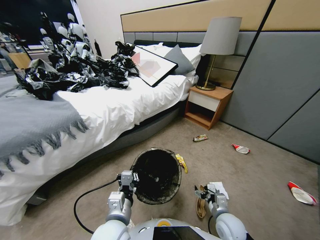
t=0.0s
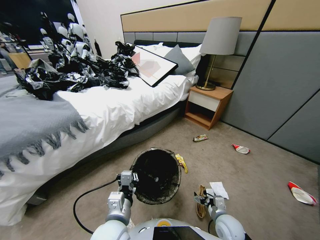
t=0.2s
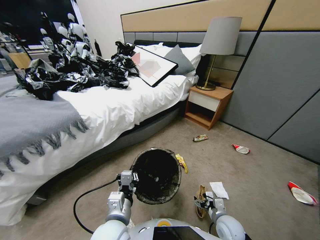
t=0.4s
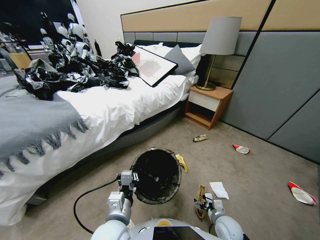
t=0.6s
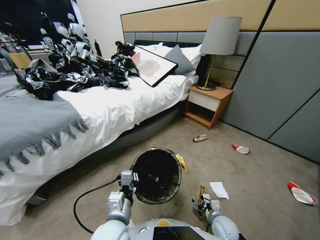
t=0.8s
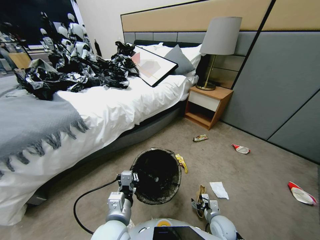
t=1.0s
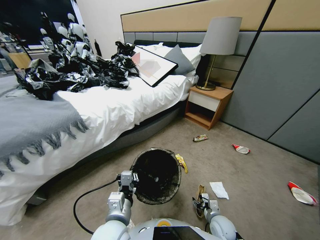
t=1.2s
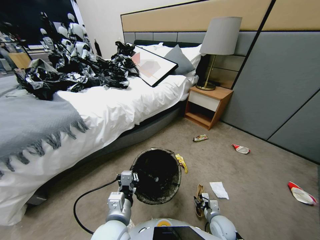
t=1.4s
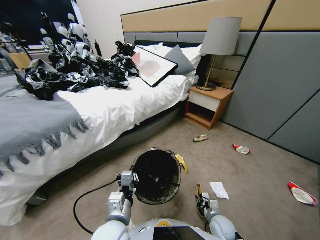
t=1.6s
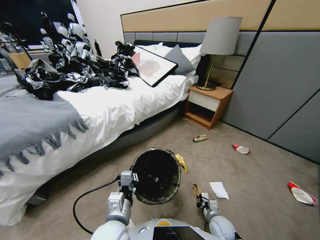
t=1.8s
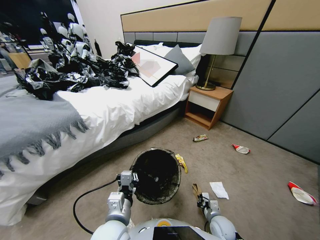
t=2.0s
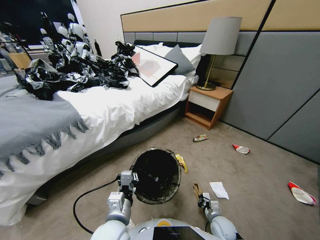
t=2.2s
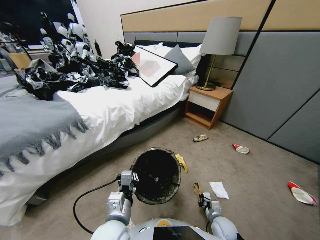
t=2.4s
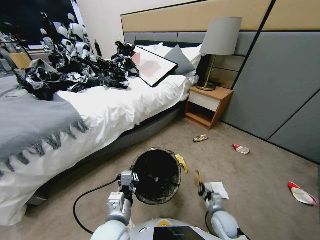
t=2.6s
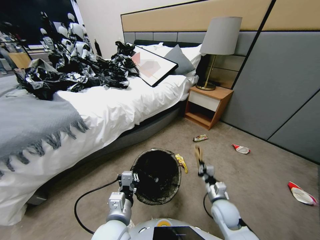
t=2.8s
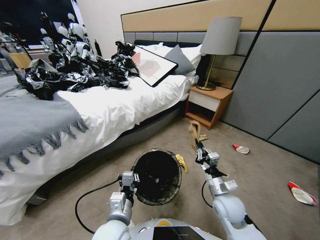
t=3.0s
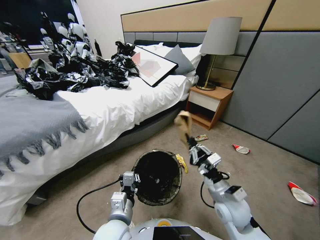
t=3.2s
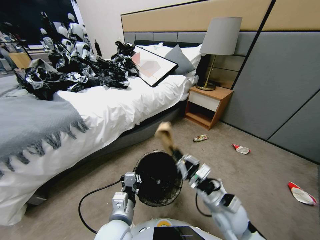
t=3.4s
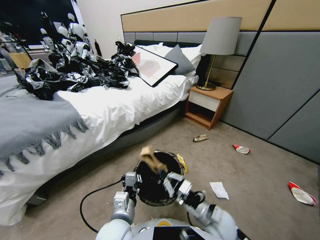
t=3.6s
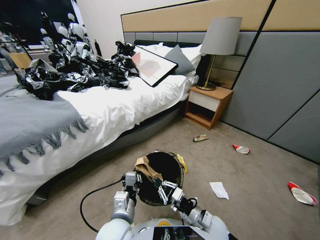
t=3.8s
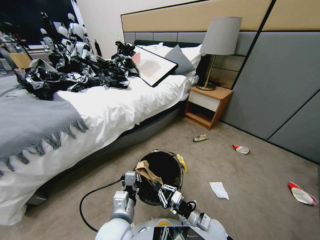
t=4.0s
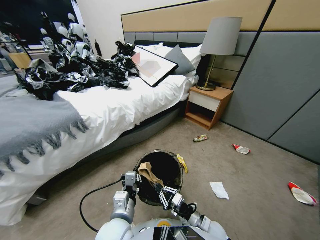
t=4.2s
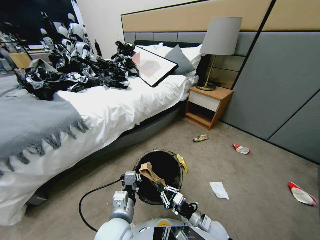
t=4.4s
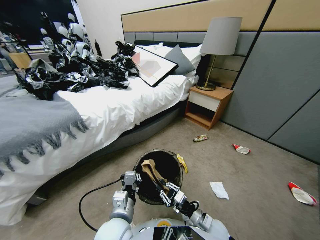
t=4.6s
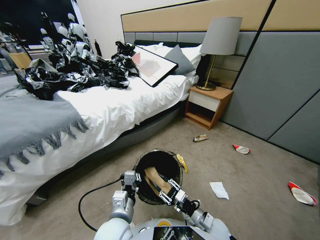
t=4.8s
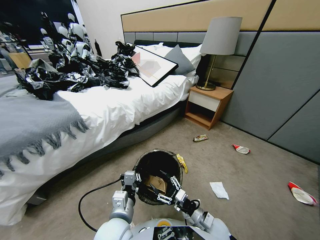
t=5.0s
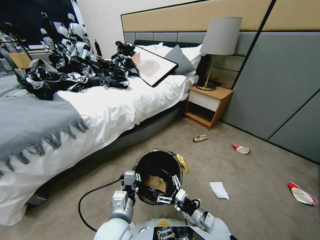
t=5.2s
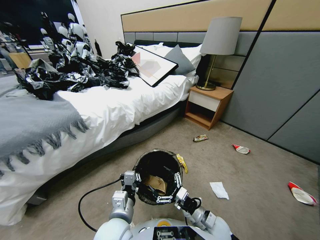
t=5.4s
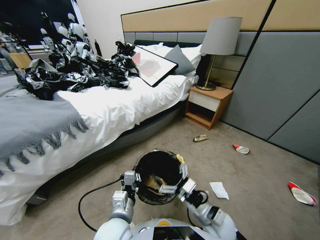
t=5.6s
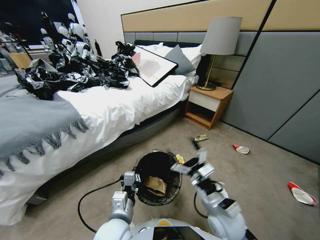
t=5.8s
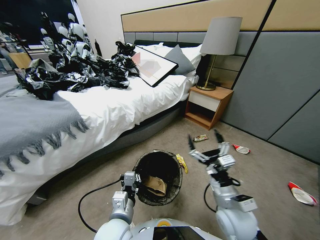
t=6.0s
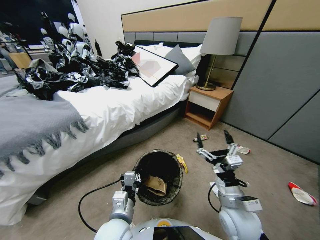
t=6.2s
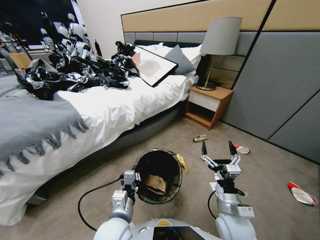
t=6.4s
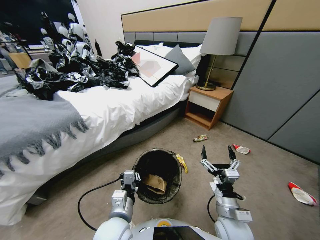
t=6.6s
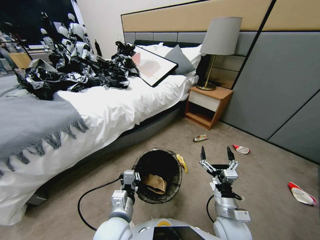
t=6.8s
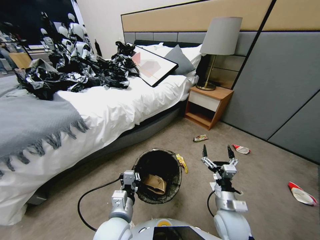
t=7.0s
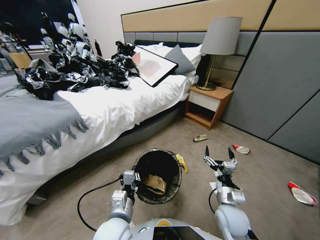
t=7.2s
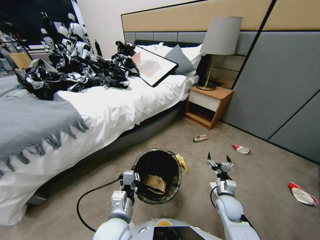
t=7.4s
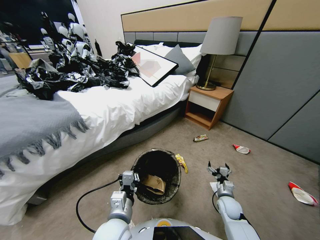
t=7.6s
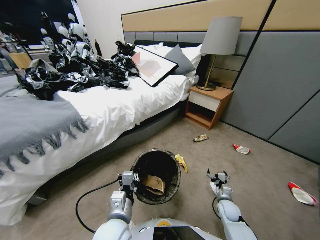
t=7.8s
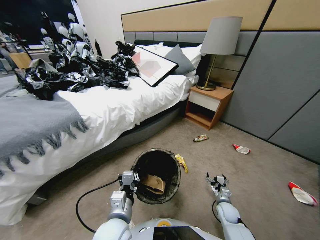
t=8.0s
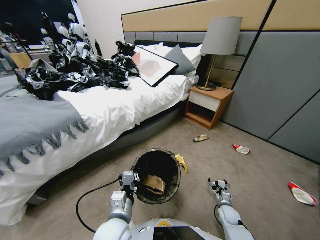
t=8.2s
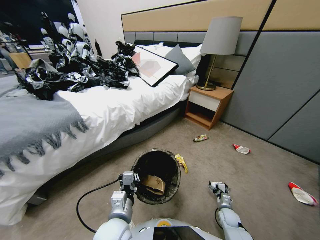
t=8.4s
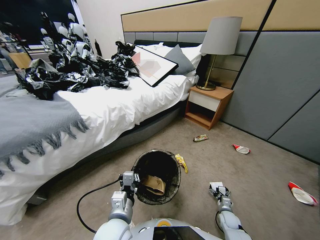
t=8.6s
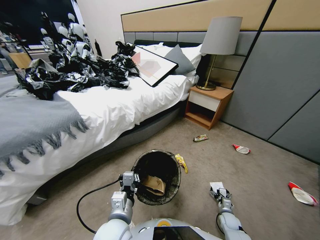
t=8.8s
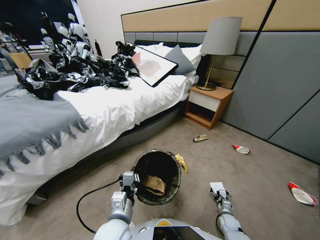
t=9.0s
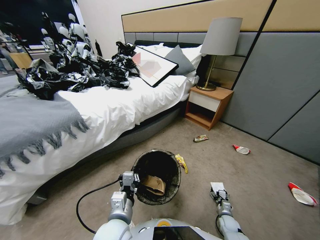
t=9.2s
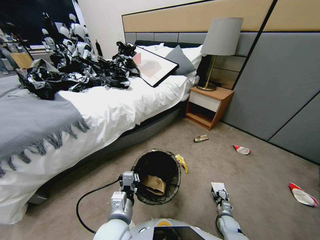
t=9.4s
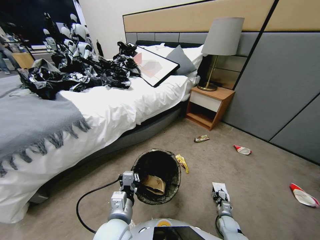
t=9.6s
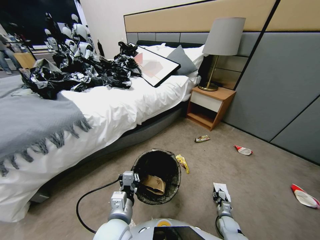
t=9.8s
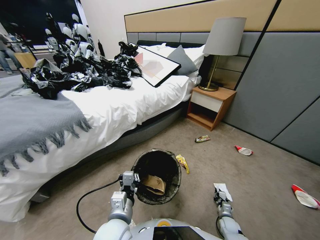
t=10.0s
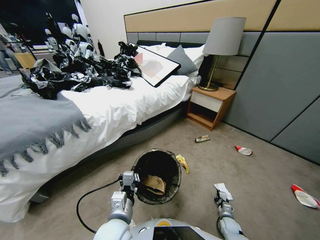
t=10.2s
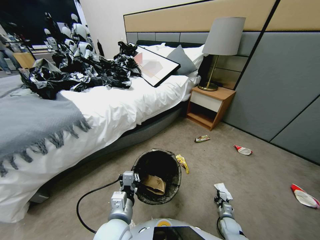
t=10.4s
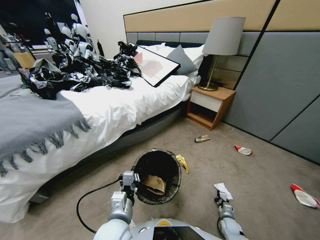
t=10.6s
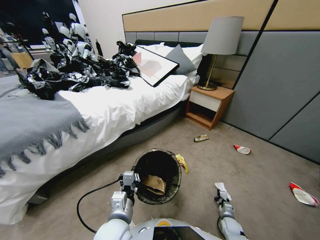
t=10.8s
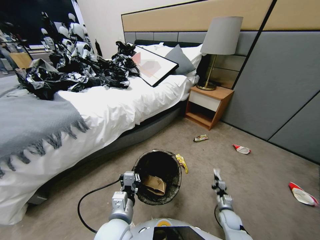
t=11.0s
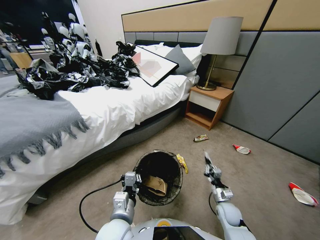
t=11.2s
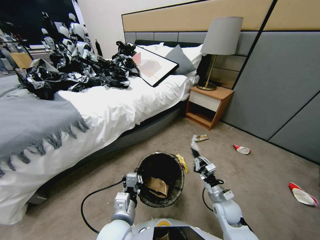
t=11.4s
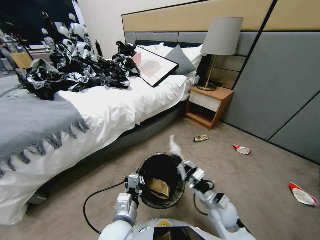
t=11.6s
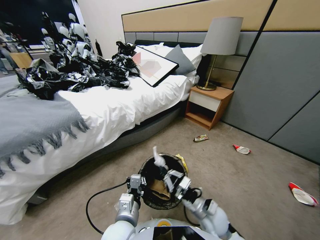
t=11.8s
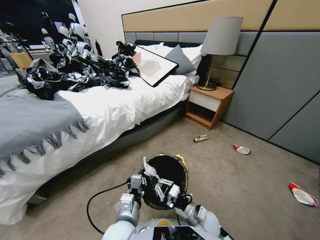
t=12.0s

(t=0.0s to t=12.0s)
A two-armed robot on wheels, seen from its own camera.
Task of the whole recording: Pick up the trash bin, then pick up the garbage from the floor and place it into the trash bin.
t=0.0s - t=1.6s: The right gripper goes roughly 5 cm downward, and closes up.
t=1.6s - t=3.0s: The right gripper is displaced upward by about 20 cm.
t=3.0s - t=4.4s: The right gripper shifts approximately 15 cm downward and backward.
t=4.4s - t=6.0s: The right gripper moves upward, roughly 15 cm, and opens its fingers.
t=6.0s - t=7.6s: The right gripper heads downward and to the right, covering about 25 cm.
t=7.6s - t=9.0s: The right gripper travels downward by some 15 cm.
t=9.0s - t=10.4s: The right gripper closes up.
t=10.4s - t=12.0s: The right gripper moves upward and to the left, about 35 cm.

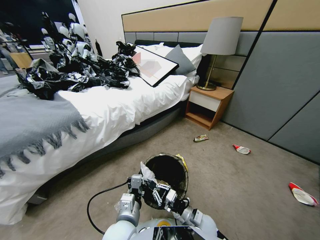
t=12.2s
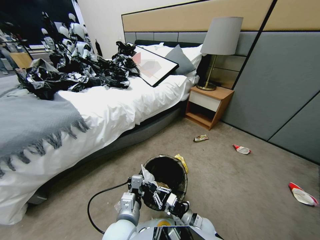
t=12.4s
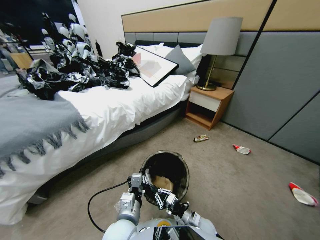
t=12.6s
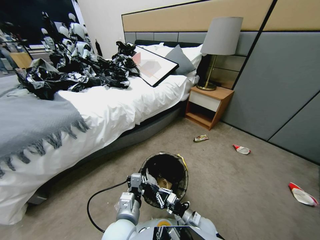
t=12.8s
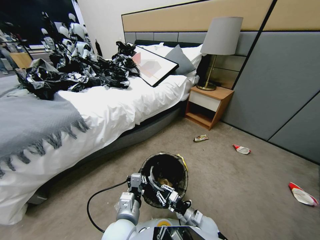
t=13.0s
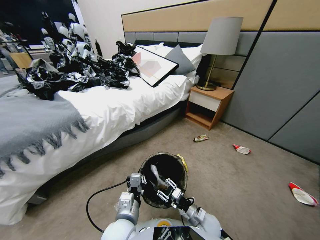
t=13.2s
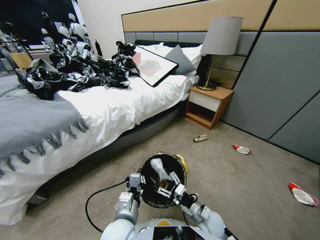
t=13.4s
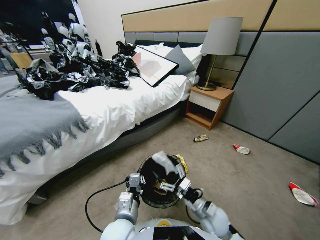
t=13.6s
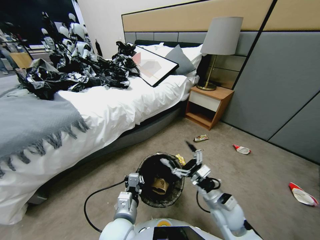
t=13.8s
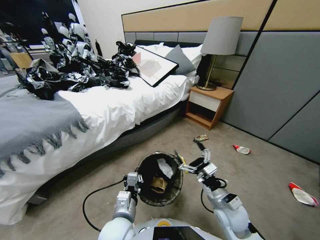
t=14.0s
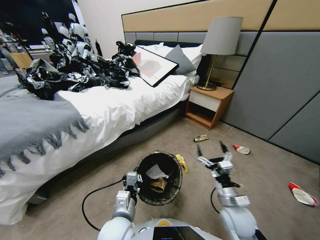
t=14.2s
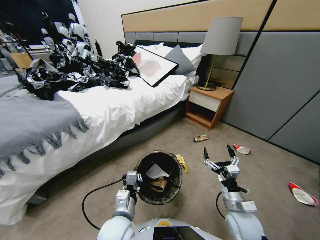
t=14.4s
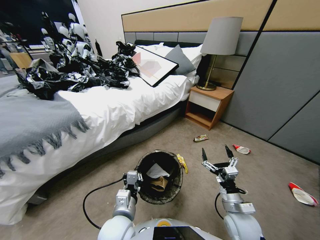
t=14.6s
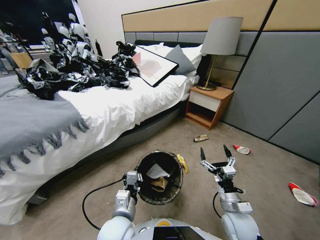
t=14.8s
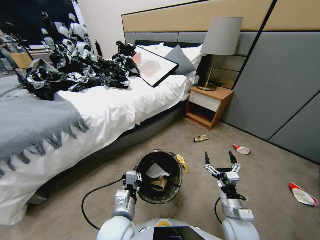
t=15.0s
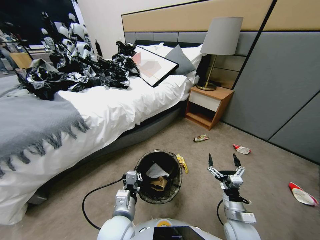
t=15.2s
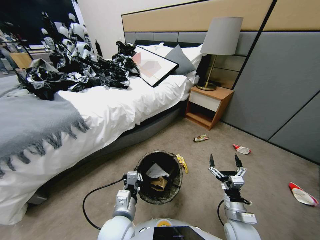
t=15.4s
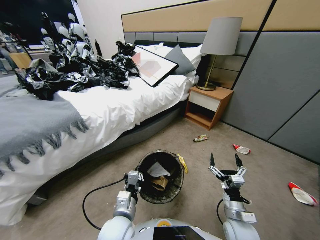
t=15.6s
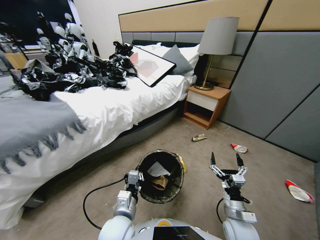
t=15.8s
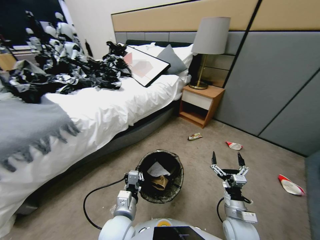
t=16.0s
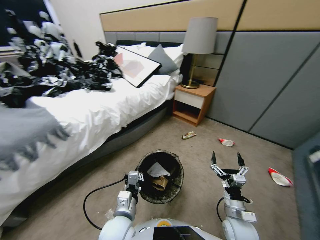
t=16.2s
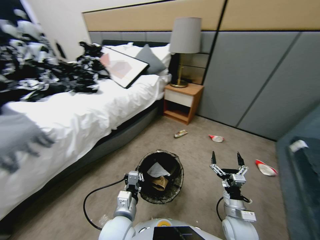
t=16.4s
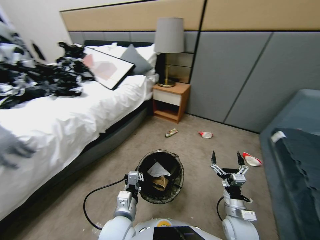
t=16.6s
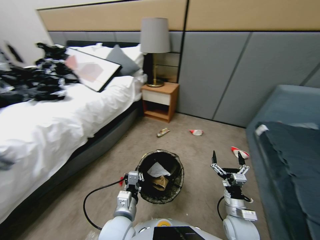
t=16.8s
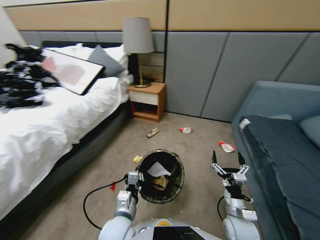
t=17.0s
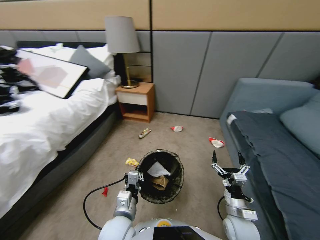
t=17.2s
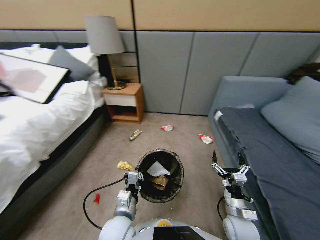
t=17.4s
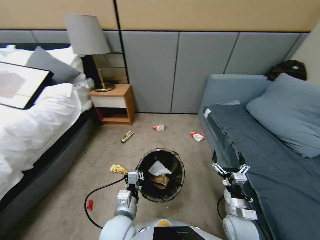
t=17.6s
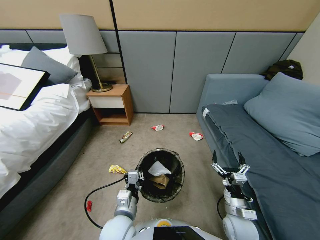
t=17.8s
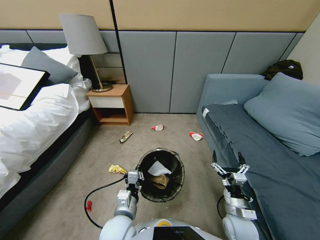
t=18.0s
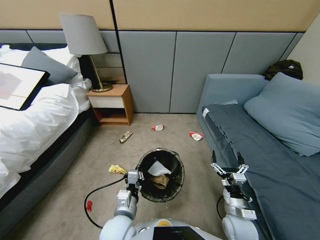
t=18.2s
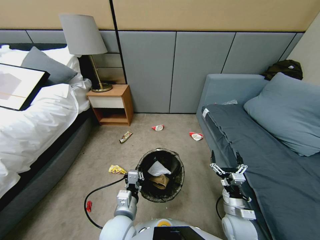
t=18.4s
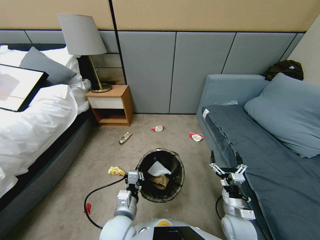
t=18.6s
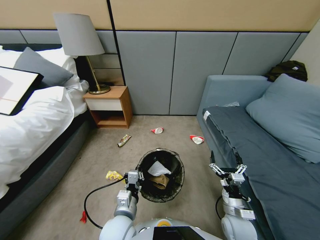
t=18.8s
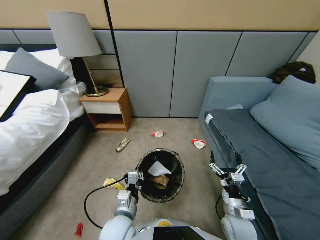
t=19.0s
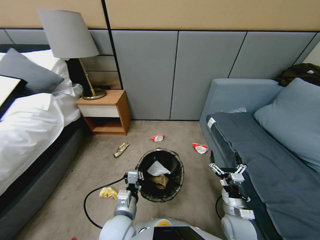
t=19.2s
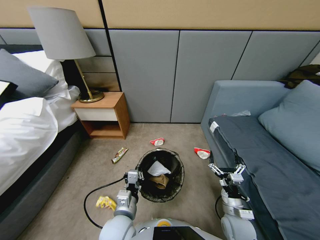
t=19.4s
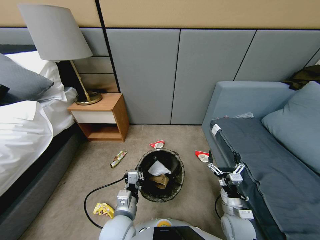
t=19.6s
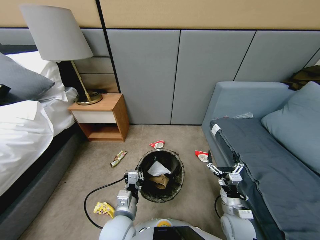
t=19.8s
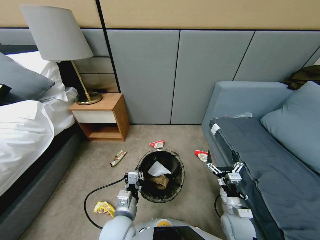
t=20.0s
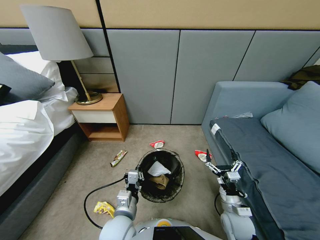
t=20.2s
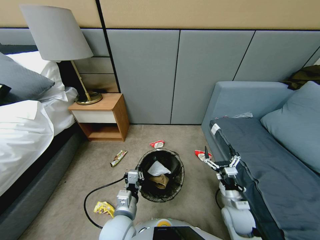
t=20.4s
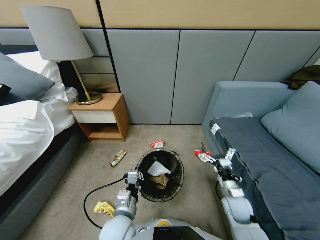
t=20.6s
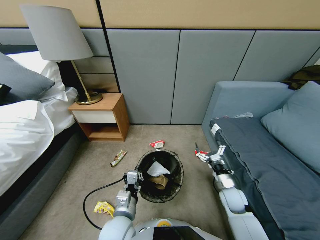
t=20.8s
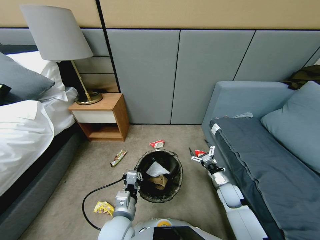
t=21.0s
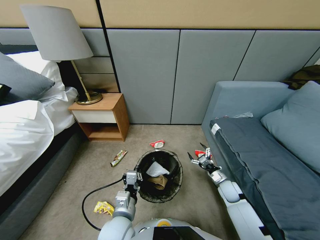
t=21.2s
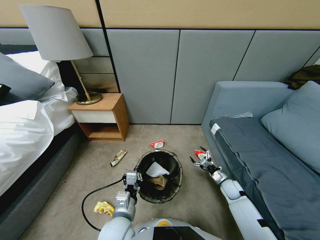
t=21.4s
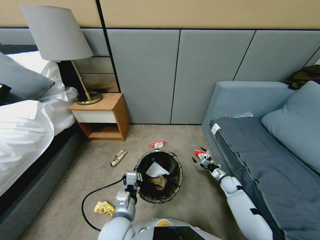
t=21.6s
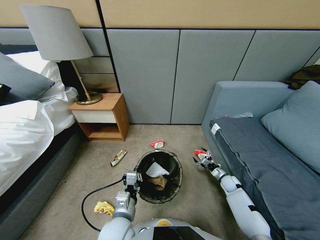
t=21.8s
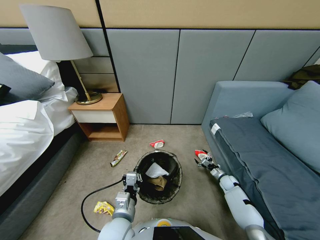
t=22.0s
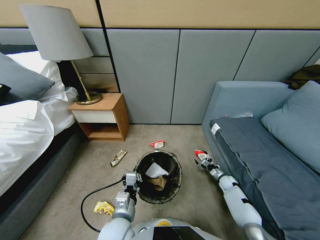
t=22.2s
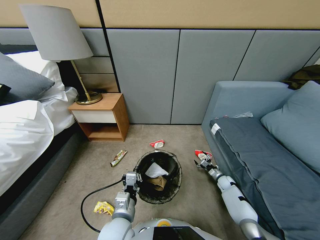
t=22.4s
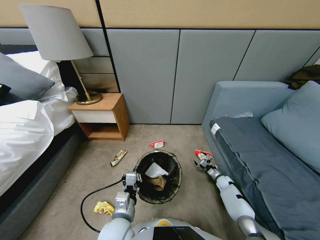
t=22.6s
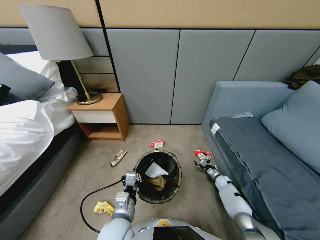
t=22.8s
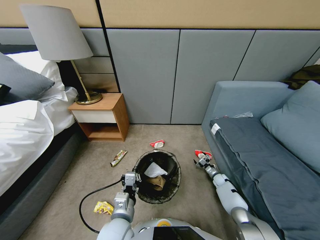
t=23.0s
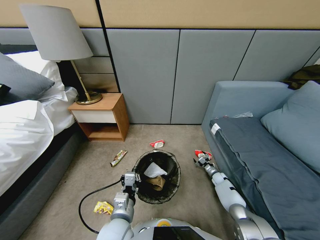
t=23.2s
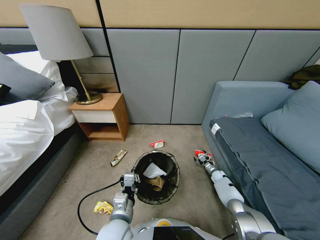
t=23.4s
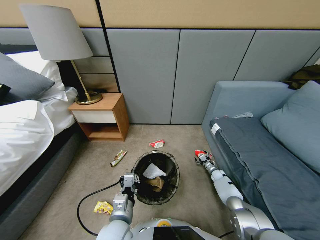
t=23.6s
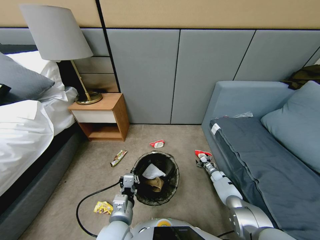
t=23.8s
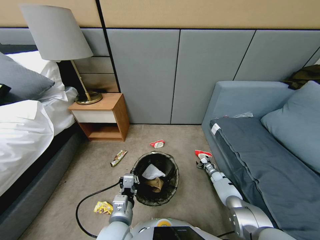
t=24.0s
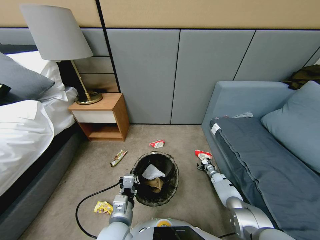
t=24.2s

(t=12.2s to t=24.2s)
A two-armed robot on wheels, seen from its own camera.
Task of the whole recording: Pick up the trash bin, then pick up the garbage from the floor and place it into the trash bin.
t=12.2s - t=13.8s: The right gripper shifts some 15 cm upward and to the right, and opens up.
t=13.8s - t=15.2s: The right gripper shifts approximately 10 cm downward and backward.
t=19.8s - t=21.2s: The right gripper travels forward, to the right and downward by approximately 20 cm.
t=21.2s - t=22.6s: The right gripper moves downward, forward and to the right, about 15 cm.
